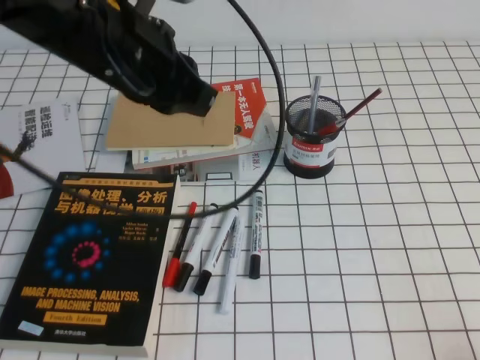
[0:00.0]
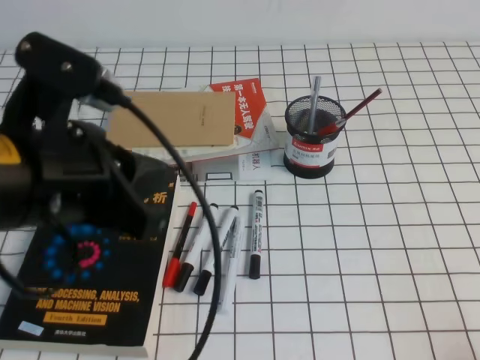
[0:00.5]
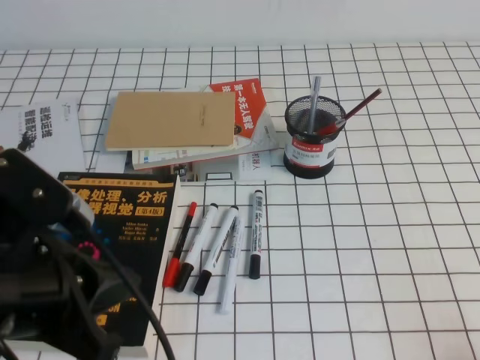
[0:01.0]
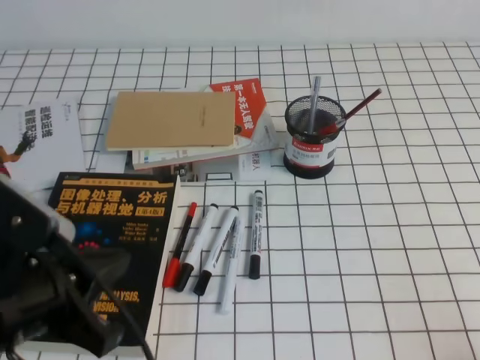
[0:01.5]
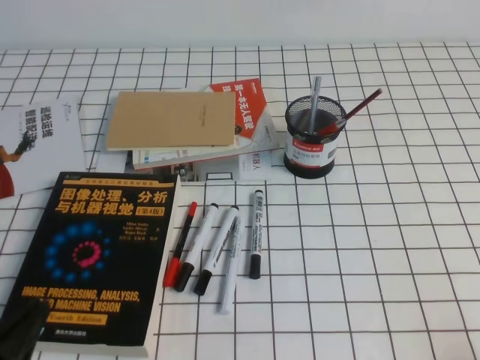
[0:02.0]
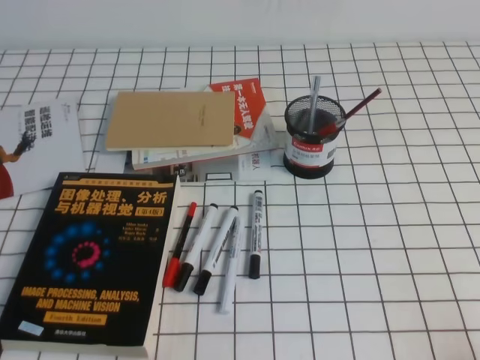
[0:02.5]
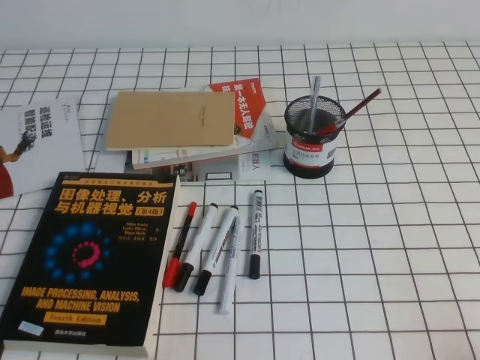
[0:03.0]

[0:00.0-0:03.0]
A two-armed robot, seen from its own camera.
Step, 0:00.0 to 0:03.0: Pick up the pen from the pen holder.
0:00.0 to 0:01.5: The left gripper moves backward, downward and to the left, roughly 20 cm.
0:01.5 to 0:03.0: The left gripper moves downward, to the left and backward, some 15 cm.
